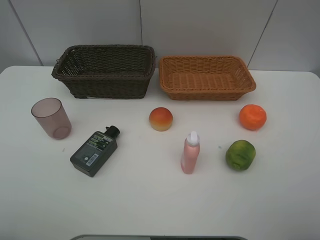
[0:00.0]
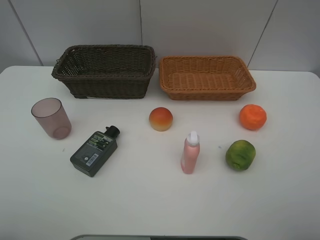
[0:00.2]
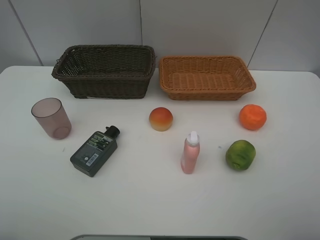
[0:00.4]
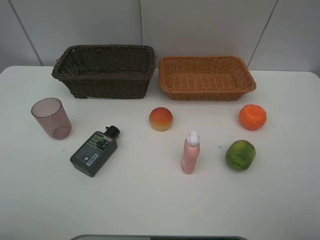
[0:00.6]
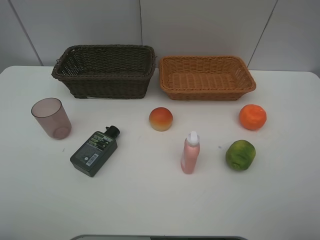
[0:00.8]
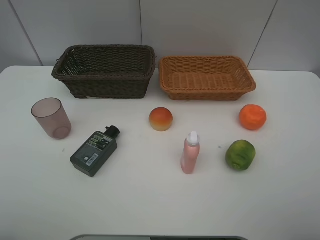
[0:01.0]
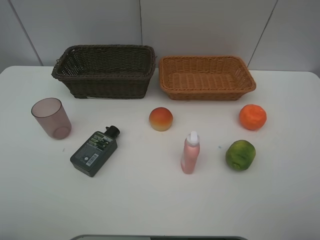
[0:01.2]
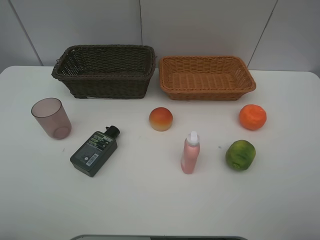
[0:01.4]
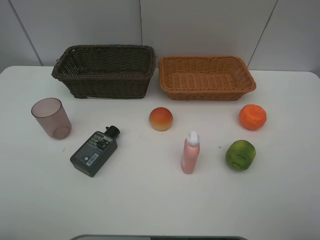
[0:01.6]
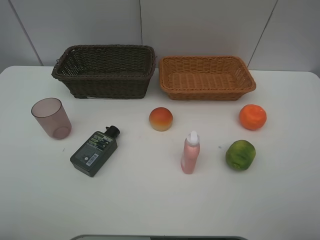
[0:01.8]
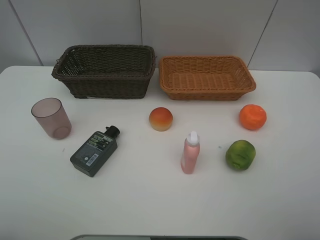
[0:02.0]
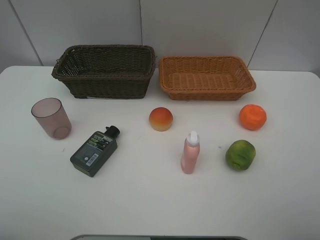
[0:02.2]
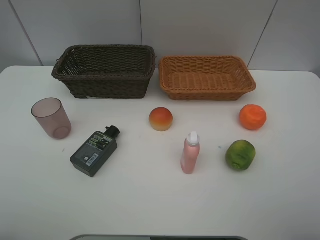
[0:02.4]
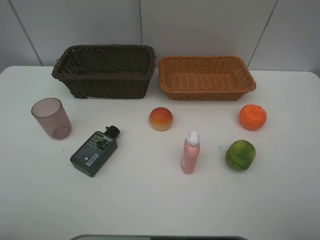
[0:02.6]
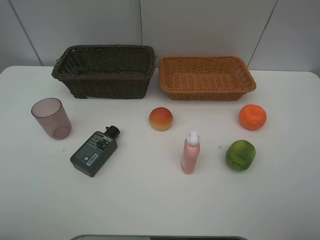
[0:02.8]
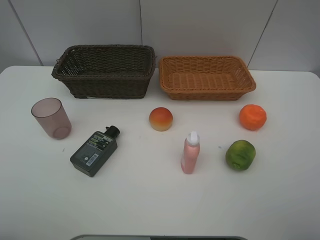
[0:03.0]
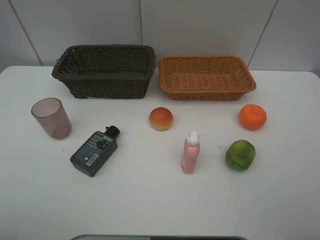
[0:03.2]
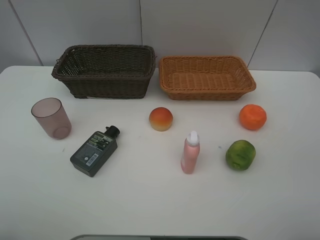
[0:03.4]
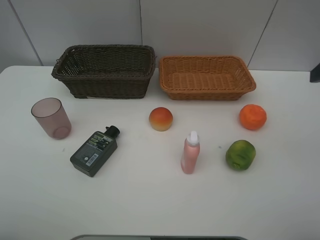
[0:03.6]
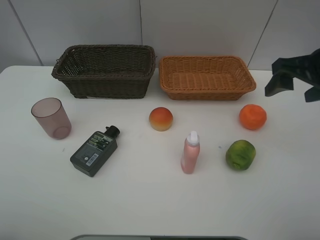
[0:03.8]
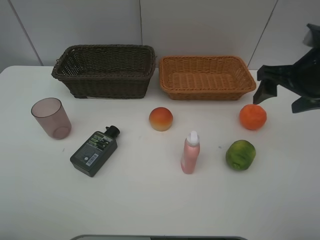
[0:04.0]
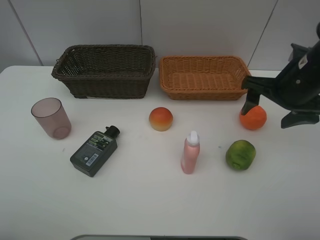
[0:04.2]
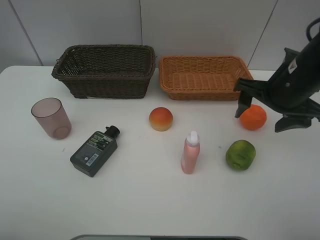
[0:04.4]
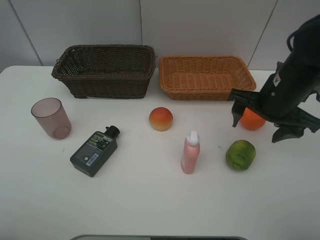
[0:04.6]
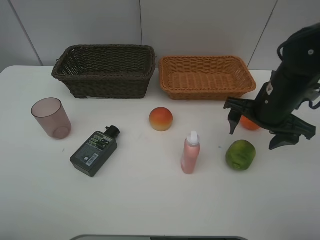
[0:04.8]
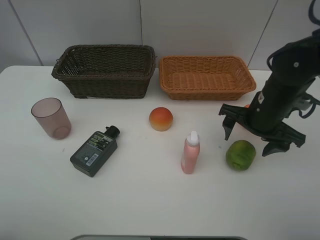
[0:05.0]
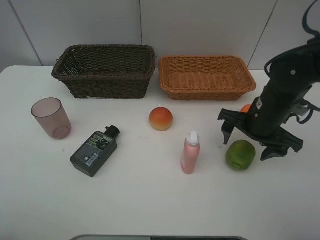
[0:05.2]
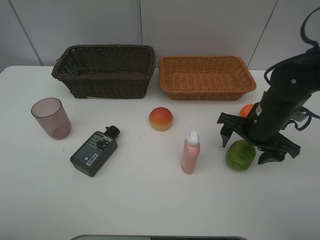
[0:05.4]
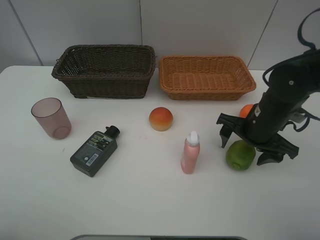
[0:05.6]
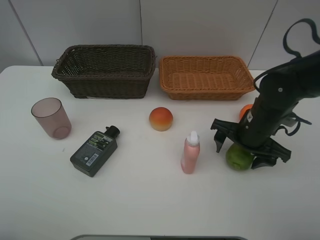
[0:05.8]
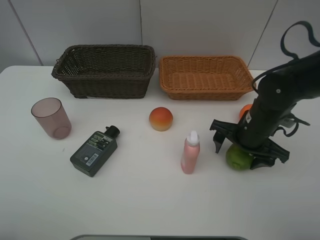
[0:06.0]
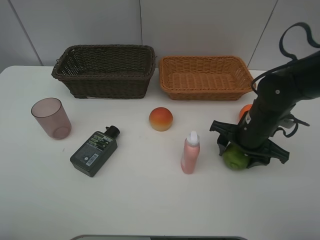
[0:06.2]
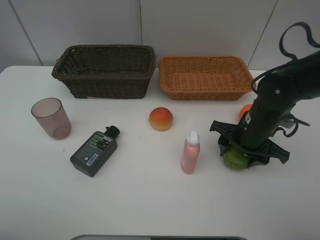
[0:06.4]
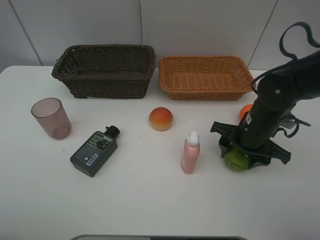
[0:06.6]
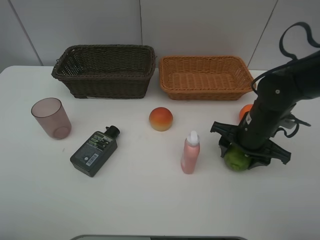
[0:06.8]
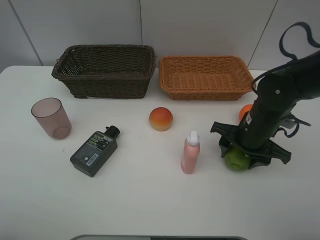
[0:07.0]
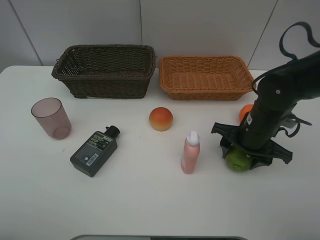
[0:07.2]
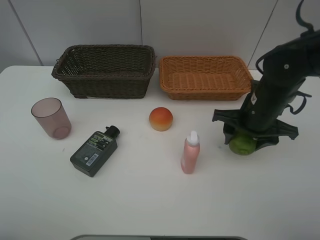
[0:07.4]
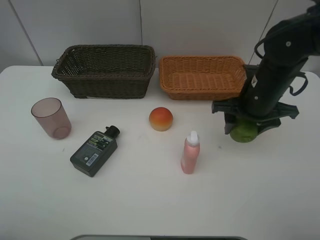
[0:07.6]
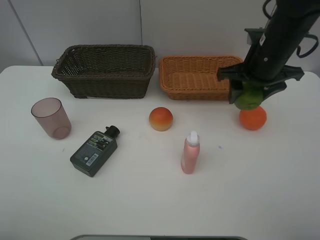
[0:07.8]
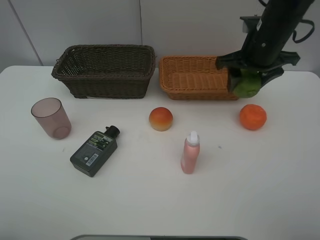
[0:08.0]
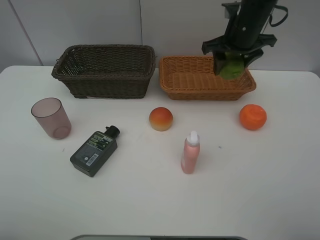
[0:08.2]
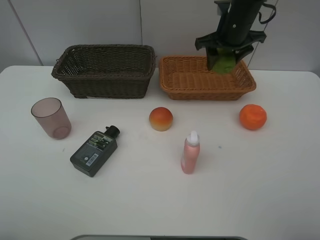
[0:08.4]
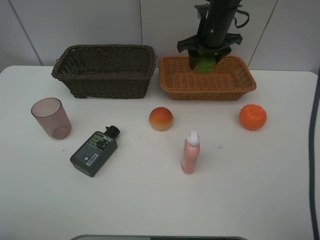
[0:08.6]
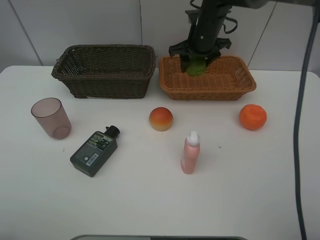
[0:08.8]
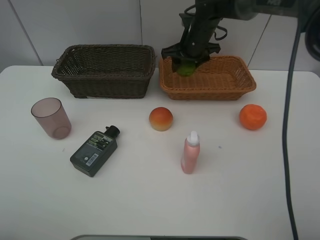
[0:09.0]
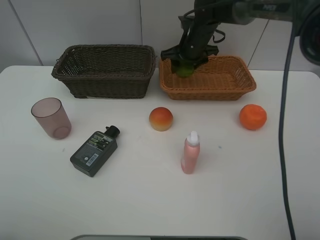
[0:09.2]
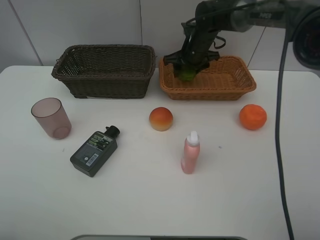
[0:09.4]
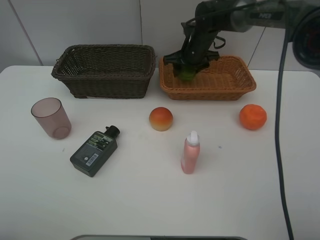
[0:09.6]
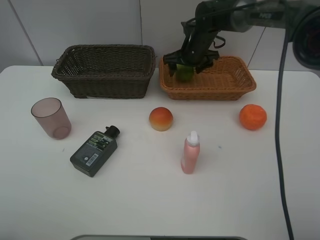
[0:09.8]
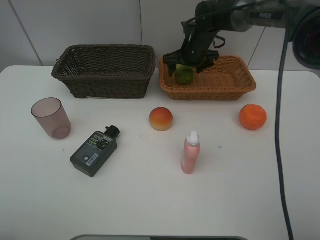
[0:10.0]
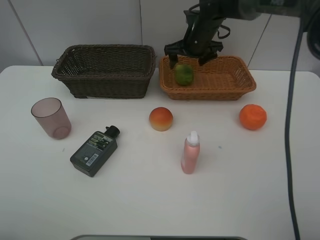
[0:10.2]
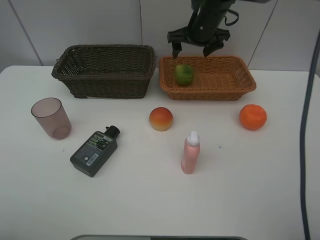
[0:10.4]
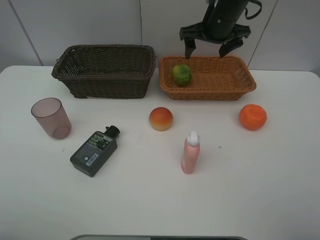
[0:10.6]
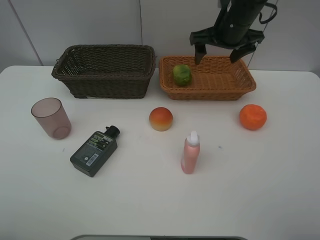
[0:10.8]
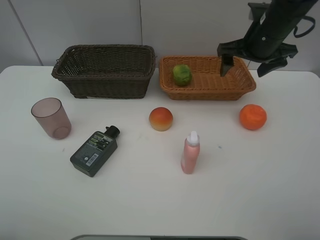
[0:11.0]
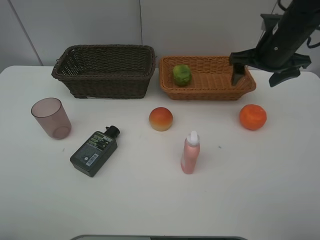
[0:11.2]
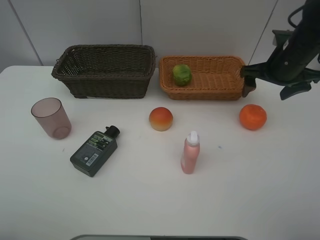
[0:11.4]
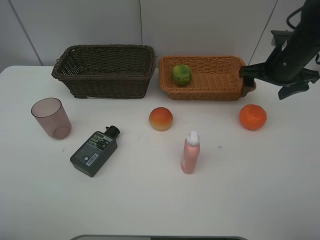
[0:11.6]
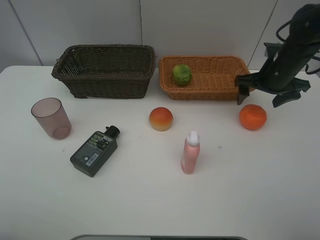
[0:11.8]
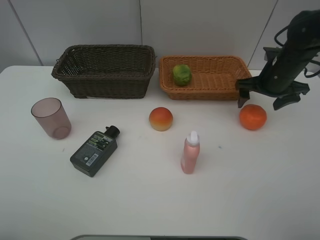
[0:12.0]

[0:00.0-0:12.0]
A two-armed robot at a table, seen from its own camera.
Task of the whole recording: place multiple objects separately in different baskets.
0:00.0 to 0:01.6: Both grippers stay put.
0:03.0 to 0:04.4: The right gripper is displaced forward, downward and to the left by about 25 cm.
0:04.4 to 0:06.0: The right gripper shifts some 10 cm downward.
0:06.0 to 0:07.6: The right gripper travels upward by roughly 10 cm.
0:07.6 to 0:09.0: The right gripper is displaced forward and to the left by roughly 20 cm.
0:09.0 to 0:10.4: The right gripper travels upward by approximately 5 cm, and opens.
0:10.4 to 0:12.0: The right gripper moves to the right, backward and downward, roughly 20 cm.

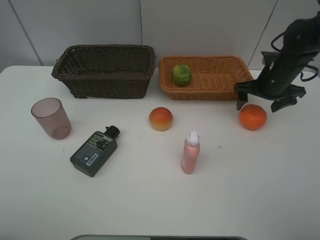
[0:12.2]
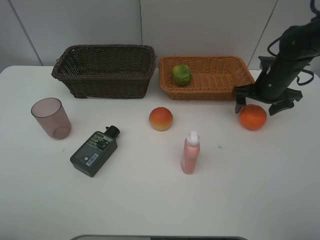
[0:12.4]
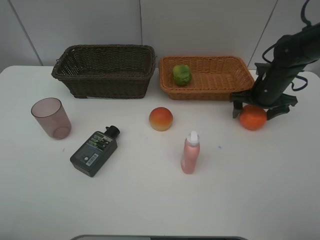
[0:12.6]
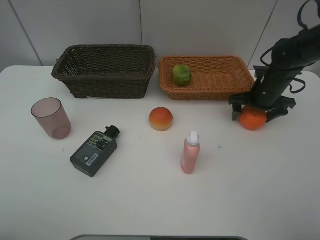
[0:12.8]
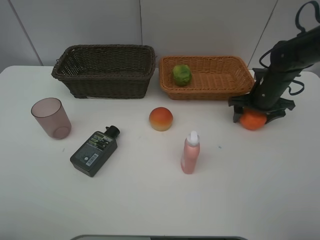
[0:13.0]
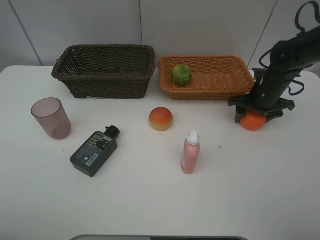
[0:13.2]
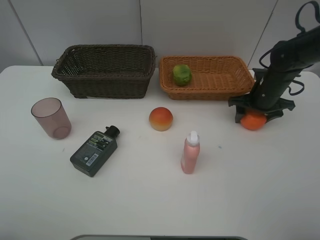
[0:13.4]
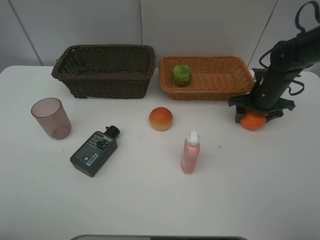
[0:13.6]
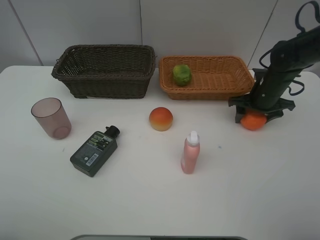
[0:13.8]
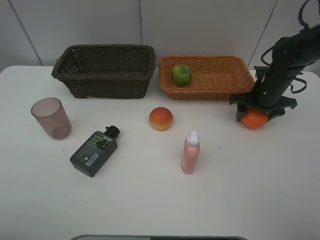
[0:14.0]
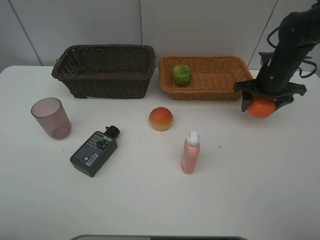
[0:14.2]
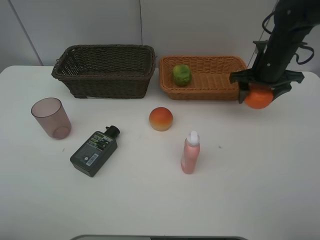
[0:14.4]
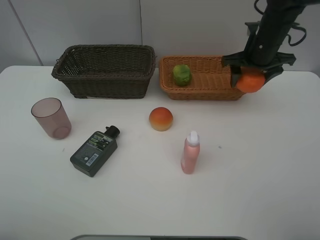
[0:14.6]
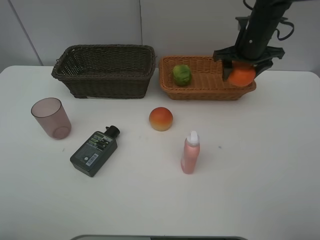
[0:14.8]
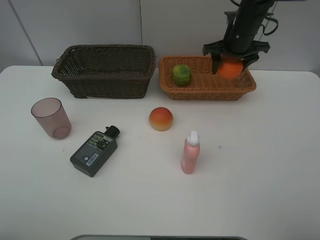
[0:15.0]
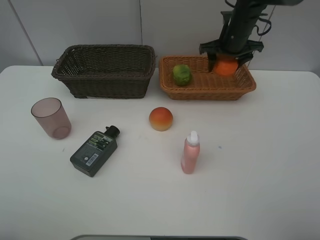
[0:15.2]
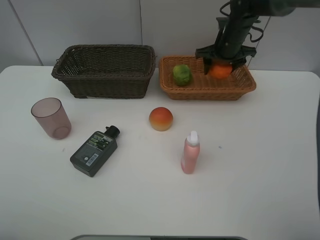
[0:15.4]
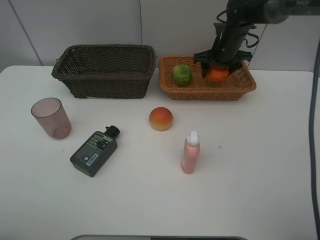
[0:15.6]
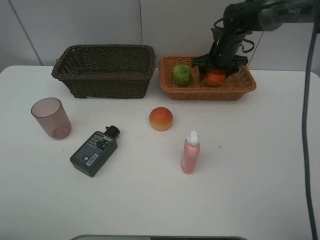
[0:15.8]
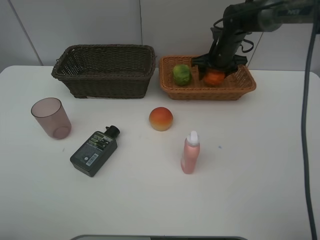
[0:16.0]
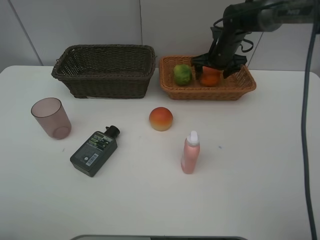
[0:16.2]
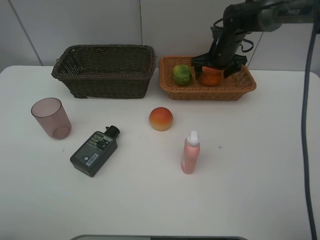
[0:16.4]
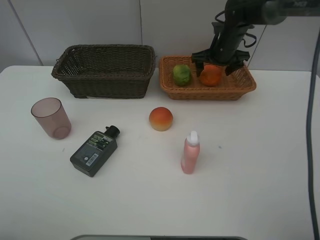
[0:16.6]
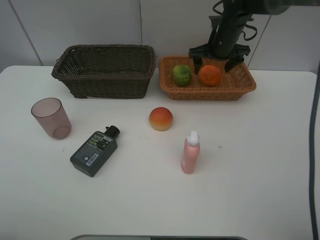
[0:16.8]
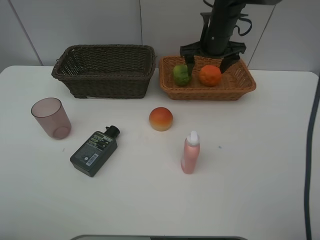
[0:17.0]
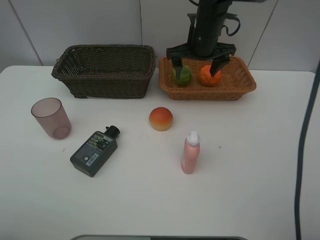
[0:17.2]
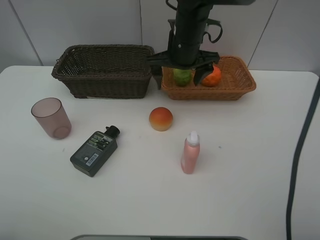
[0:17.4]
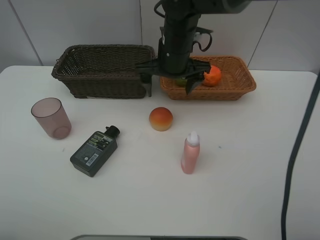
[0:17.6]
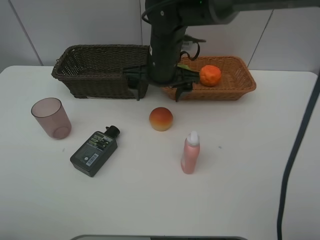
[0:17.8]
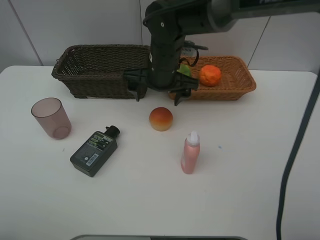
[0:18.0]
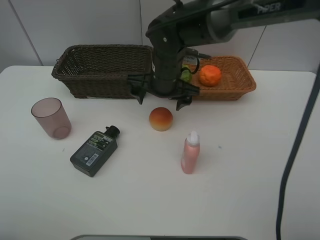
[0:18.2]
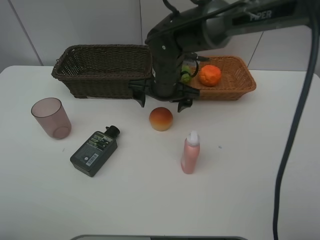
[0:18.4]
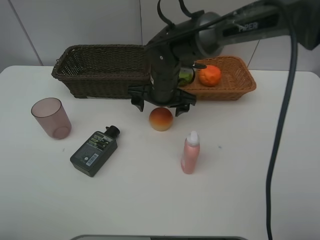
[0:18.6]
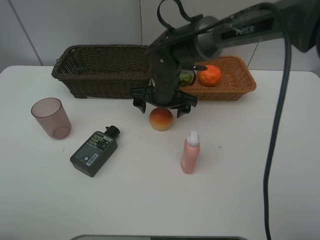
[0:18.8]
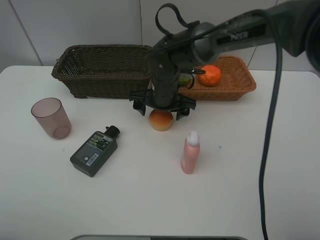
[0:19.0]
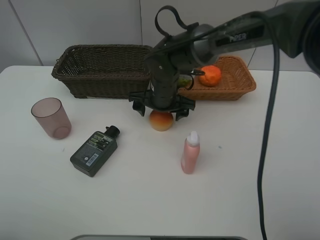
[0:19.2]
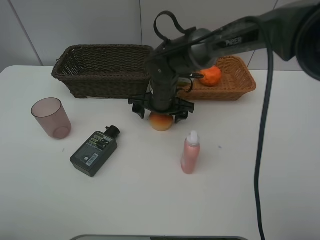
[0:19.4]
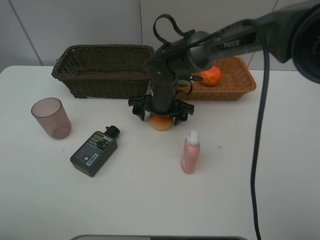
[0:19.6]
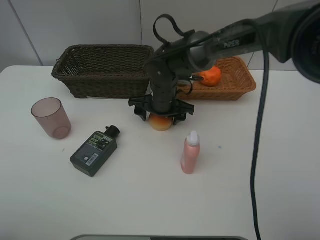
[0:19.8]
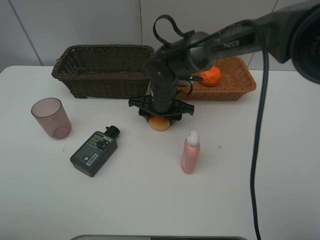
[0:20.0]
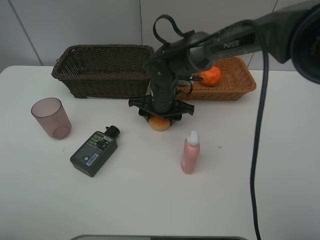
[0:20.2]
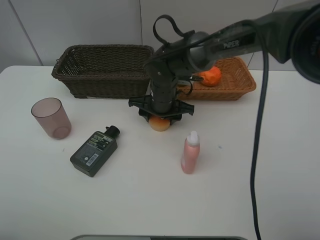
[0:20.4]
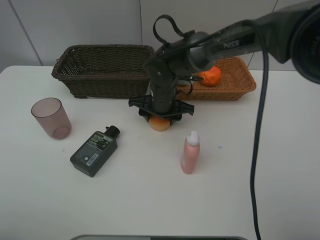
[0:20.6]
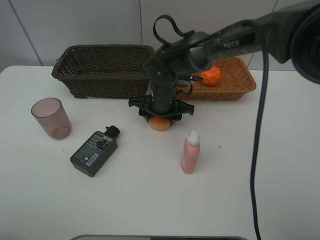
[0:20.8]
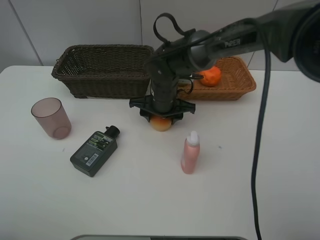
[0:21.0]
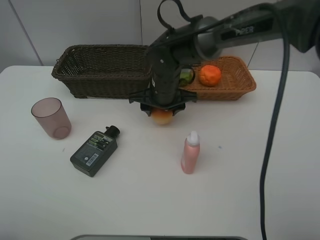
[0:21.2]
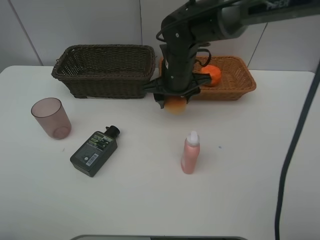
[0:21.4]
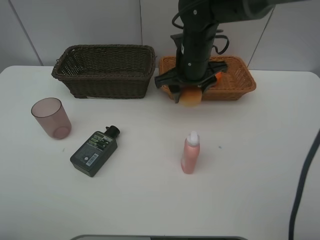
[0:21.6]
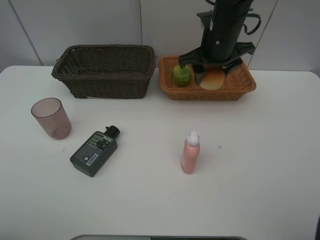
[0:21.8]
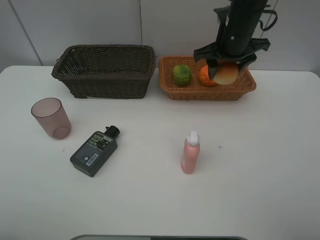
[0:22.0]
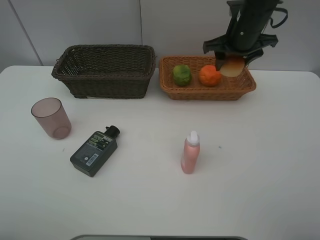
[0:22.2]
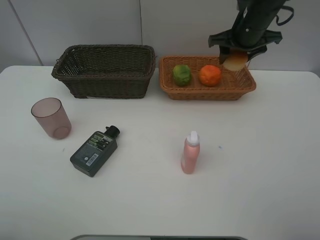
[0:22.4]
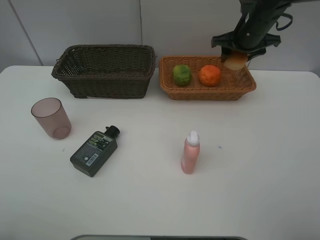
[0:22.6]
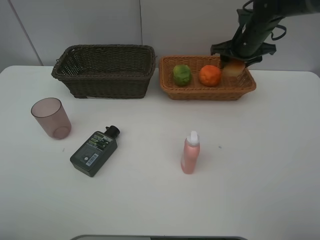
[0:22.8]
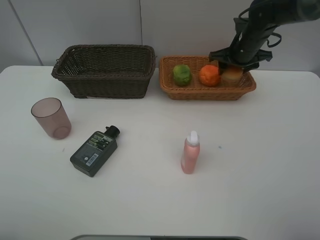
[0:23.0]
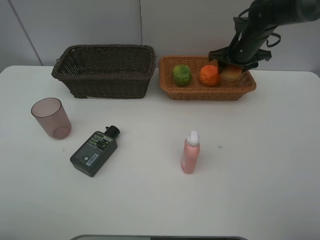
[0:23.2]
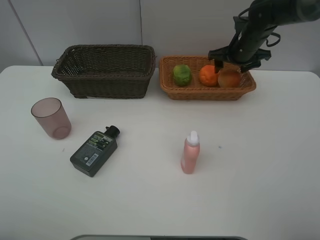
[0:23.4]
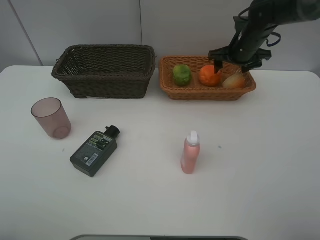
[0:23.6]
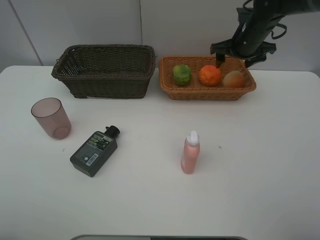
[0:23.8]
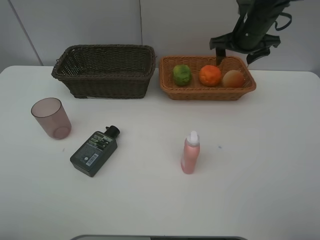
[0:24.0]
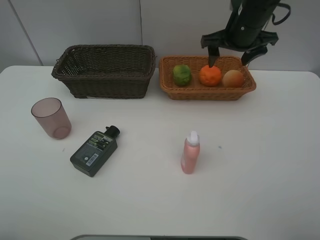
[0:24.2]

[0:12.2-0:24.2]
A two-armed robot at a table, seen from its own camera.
Task of the whole recording: place multiple objects separately in different baskets.
0:12.2 to 0:13.8: The right gripper closes its fingers.
0:13.8 to 0:15.2: The right gripper shifts some 15 cm forward, upward and to the left.
0:15.2 to 0:16.6: The right gripper opens.
0:16.6 to 0:18.2: The right gripper heads to the left and backward, covering some 20 cm.
0:18.2 to 0:19.8: The right gripper is displaced downward by about 5 cm.
0:19.8 to 0:21.2: There are only small adjustments of the grippers.
0:21.2 to 0:22.6: The right gripper shifts about 25 cm to the right, upward and forward.
0:22.6 to 0:24.2: The right gripper travels backward by roughly 5 cm, and opens up.
